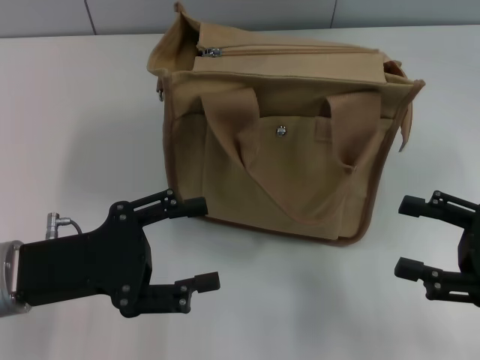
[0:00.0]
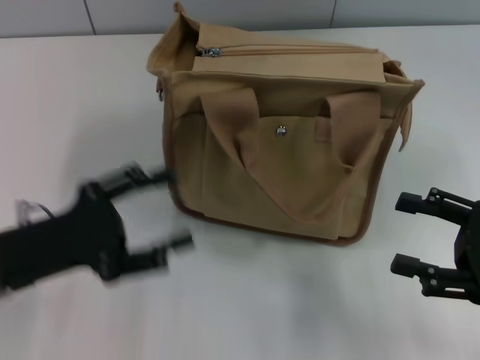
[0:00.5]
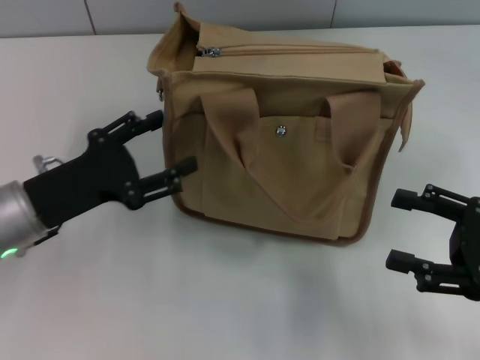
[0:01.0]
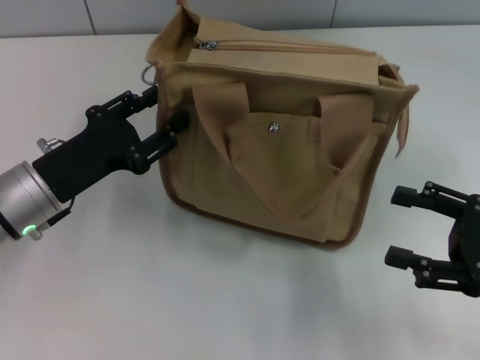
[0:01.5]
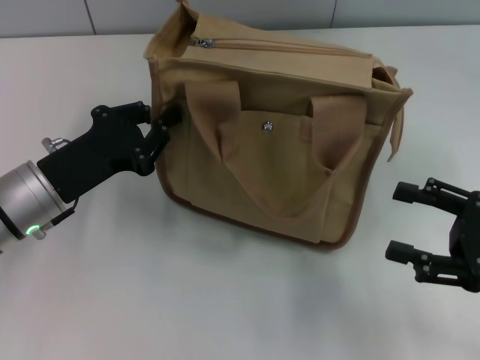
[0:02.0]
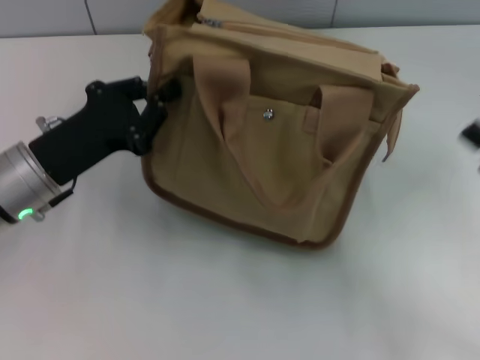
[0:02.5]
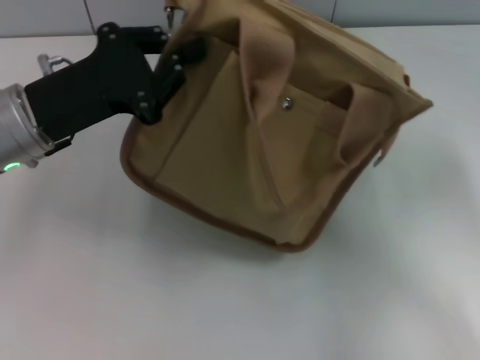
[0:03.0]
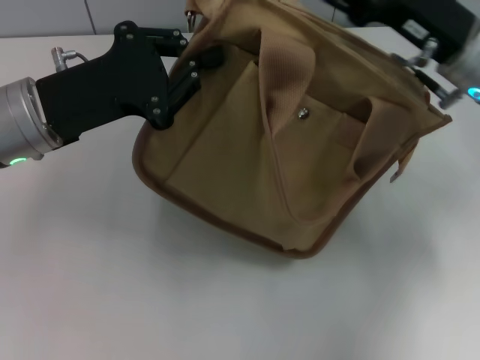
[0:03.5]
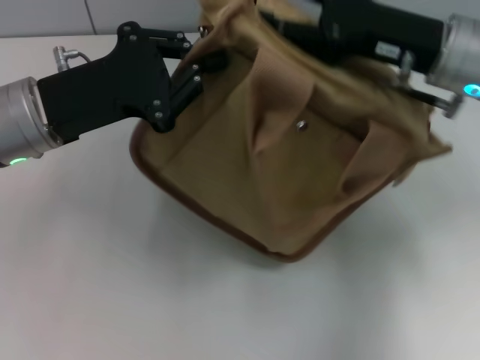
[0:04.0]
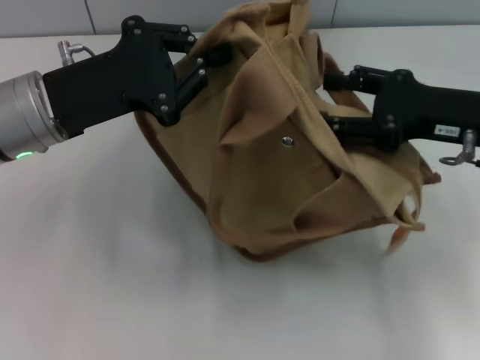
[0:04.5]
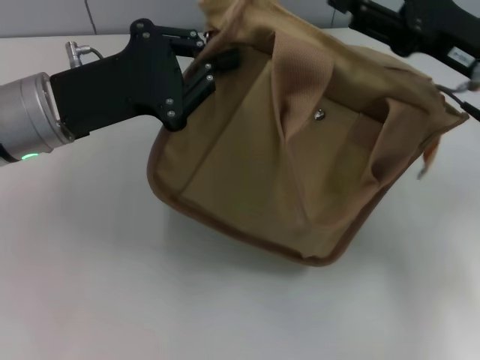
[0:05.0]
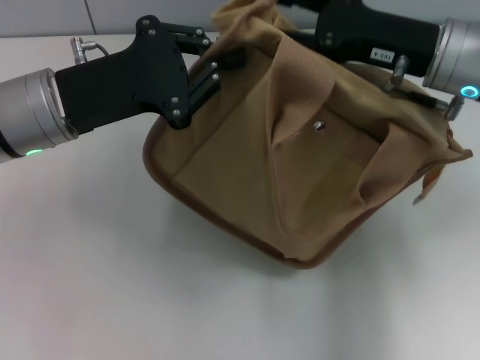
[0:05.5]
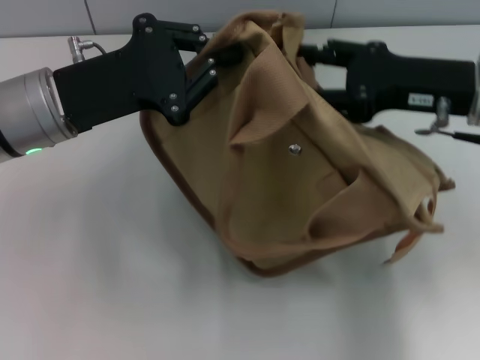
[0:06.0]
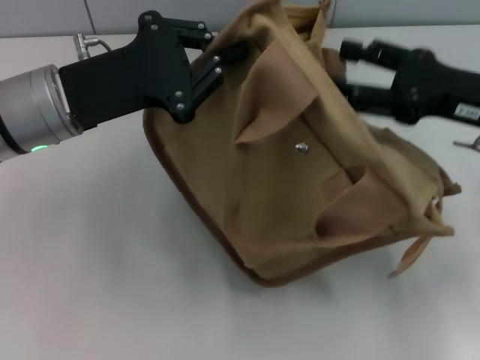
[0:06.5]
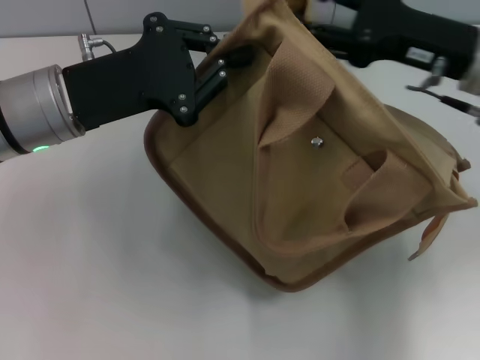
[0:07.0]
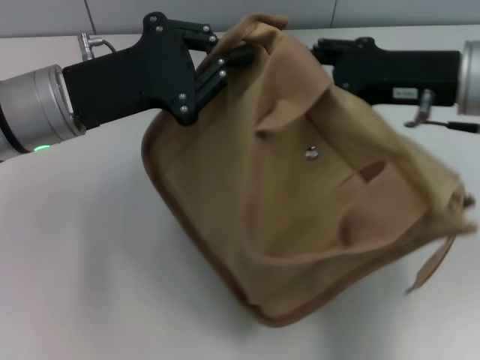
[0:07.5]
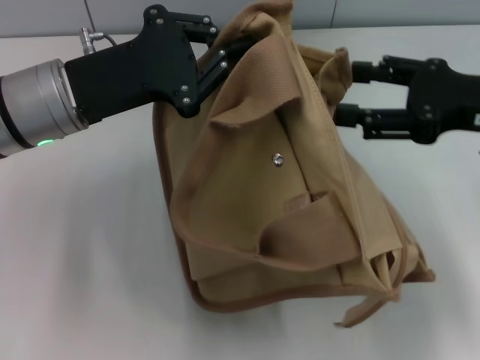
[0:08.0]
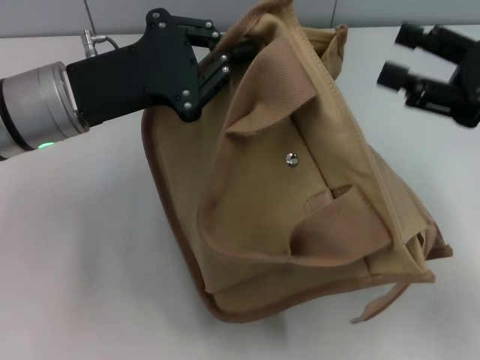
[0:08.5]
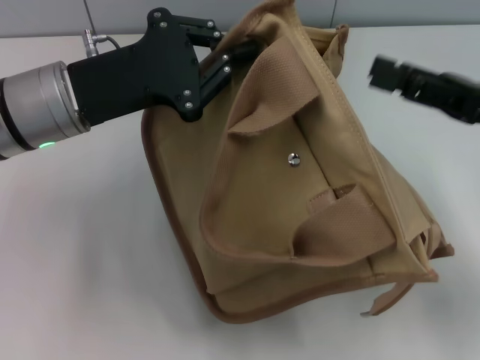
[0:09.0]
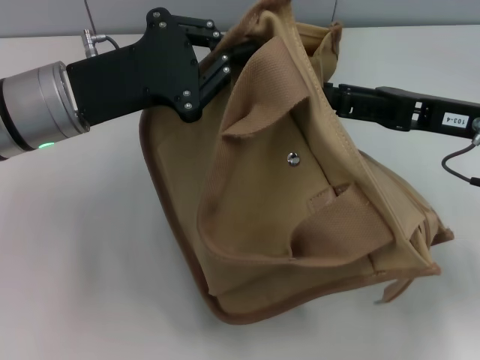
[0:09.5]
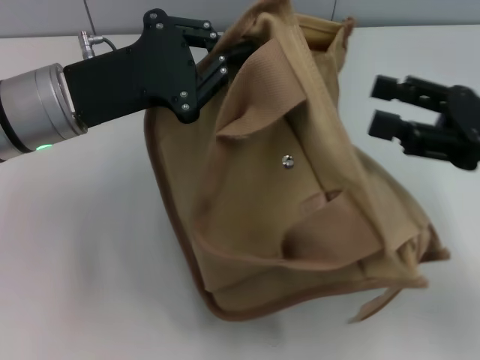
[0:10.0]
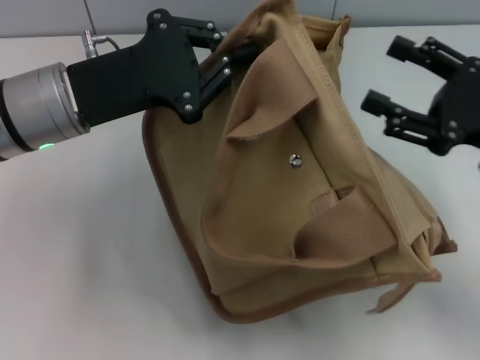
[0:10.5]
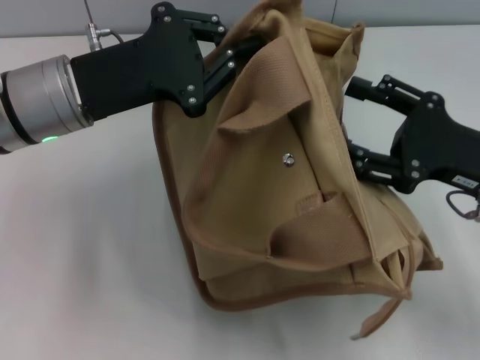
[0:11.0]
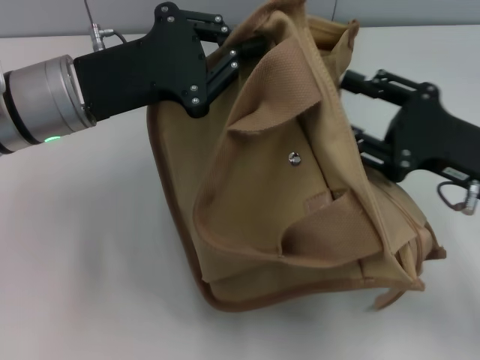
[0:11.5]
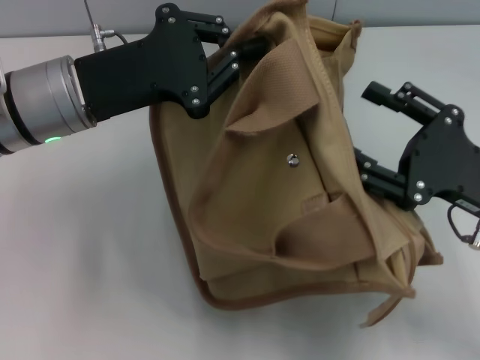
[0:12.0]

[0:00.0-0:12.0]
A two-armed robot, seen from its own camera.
0:00.0 to 0:02.0: The left gripper shifts about 5 cm forward, and closes its fingers.
0:02.0 to 0:04.0: The left gripper shifts about 10 cm upward. Meanwhile the right gripper moves forward, to the left and upward, approximately 20 cm.
0:06.0 to 0:08.0: The right gripper ends up about 5 cm from where it was.
0:10.0 to 0:12.0: The right gripper heads downward, covering roughly 5 cm.

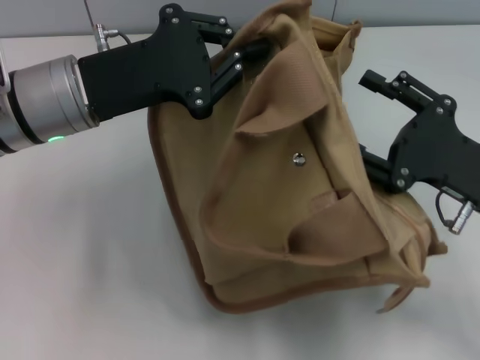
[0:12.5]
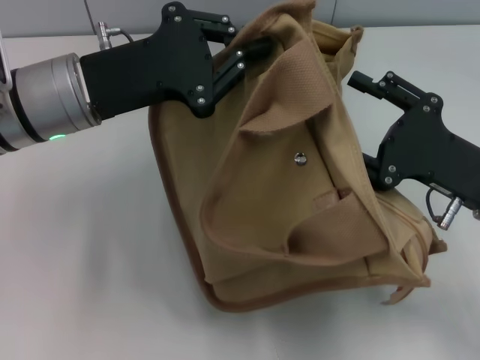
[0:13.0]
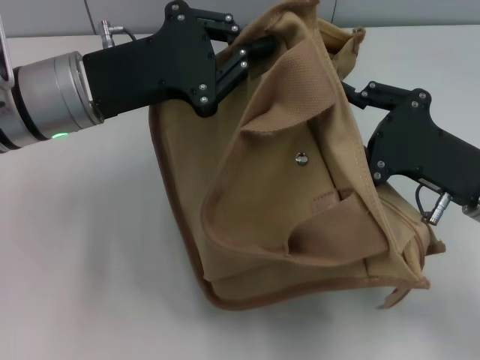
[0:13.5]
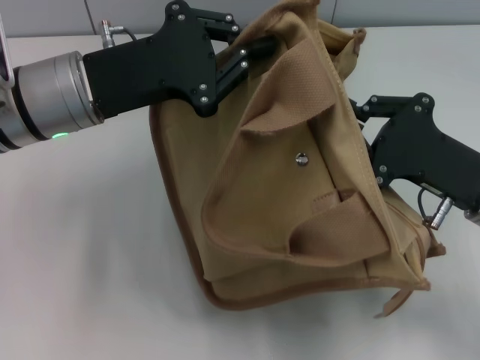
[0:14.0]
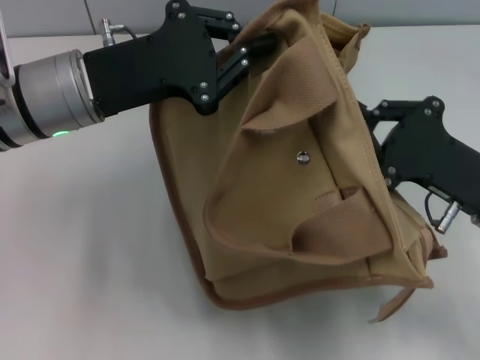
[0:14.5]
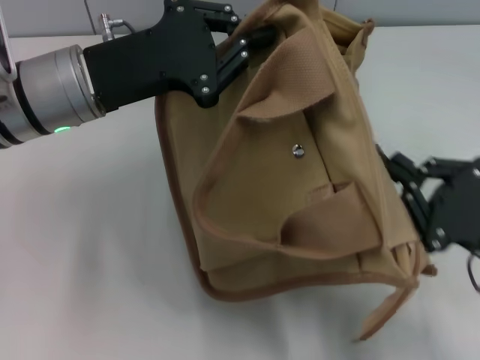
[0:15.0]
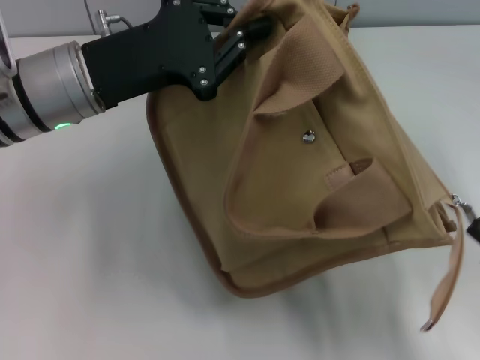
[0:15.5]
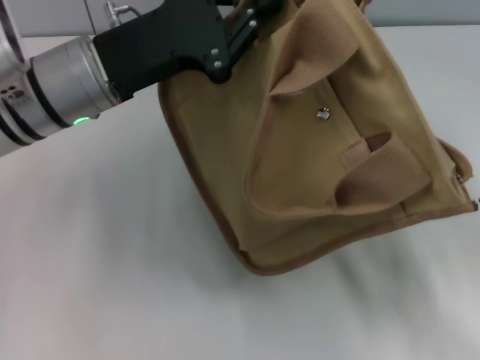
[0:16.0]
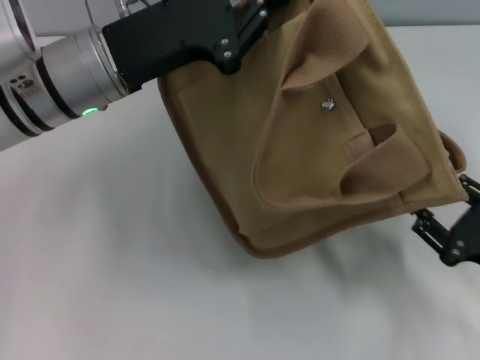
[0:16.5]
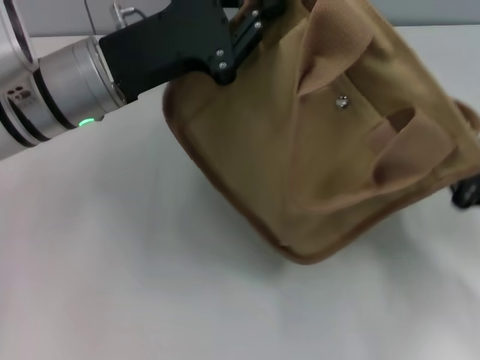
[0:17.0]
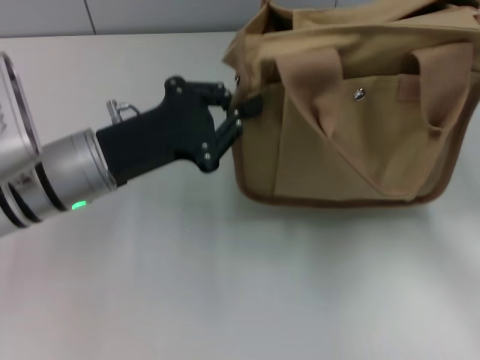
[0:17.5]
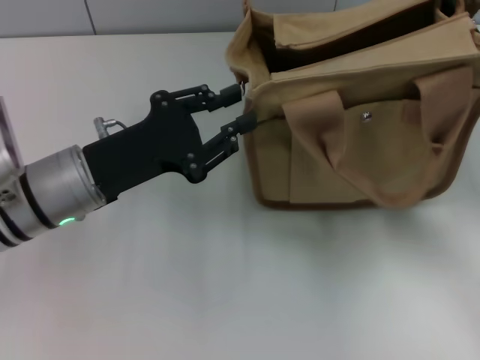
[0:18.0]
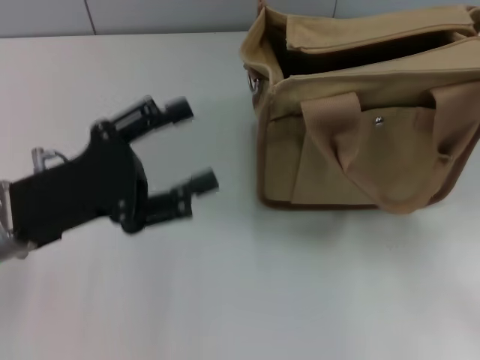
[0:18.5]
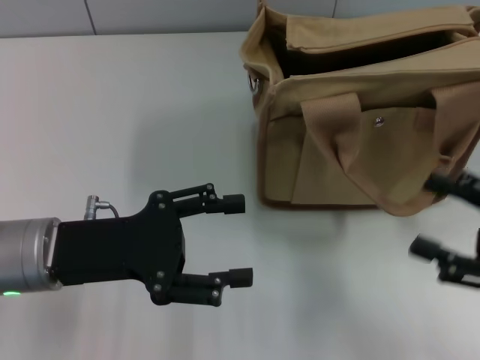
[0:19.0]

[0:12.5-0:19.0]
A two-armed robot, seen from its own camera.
Step, 0:12.5 to 0:15.5: Pull open the zipper with your right hand.
Step, 0:16.0 to 0:18.0: Grab the bag with your left hand.
0:12.5 to 0:14.5: The right gripper closes.
0:14.5 to 0:17.0: The right gripper shifts some 5 cm to the right, moves approximately 15 cm backward and comes back, and opens, then closes once more.
0:17.0 to 0:19.0: The left gripper heads backward, downward and to the left, covering some 15 cm, and opens. The right gripper travels upward by roughly 5 cm, travels forward and back again, roughly 10 cm each way, and opens up.
